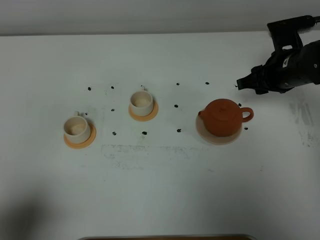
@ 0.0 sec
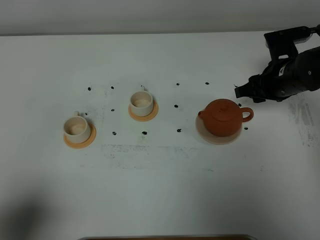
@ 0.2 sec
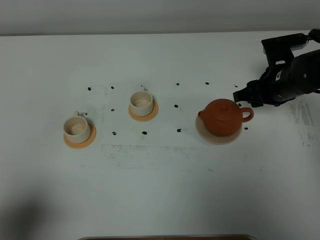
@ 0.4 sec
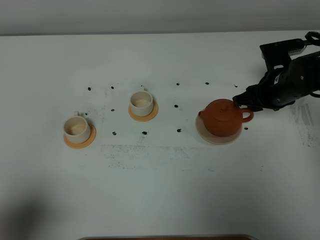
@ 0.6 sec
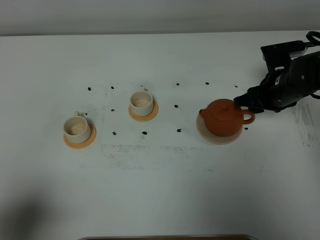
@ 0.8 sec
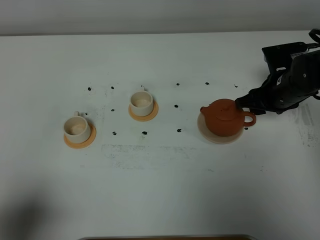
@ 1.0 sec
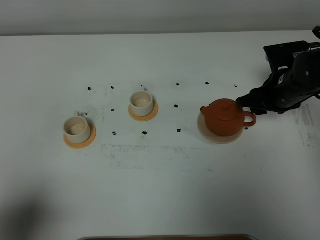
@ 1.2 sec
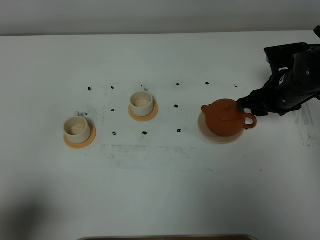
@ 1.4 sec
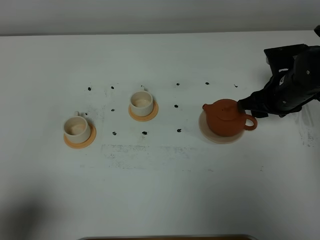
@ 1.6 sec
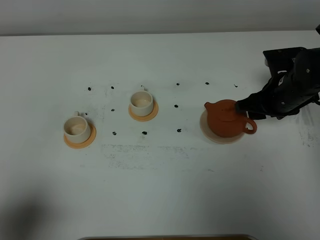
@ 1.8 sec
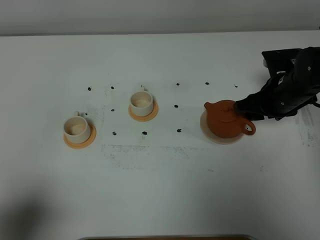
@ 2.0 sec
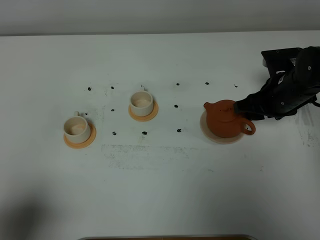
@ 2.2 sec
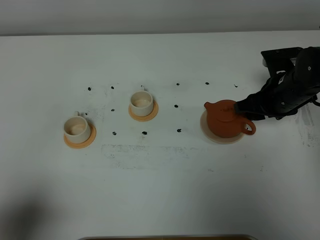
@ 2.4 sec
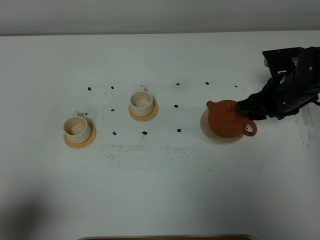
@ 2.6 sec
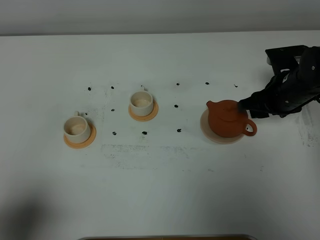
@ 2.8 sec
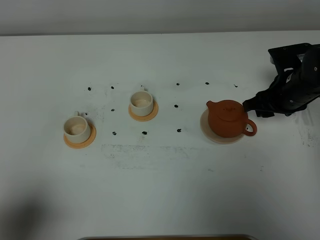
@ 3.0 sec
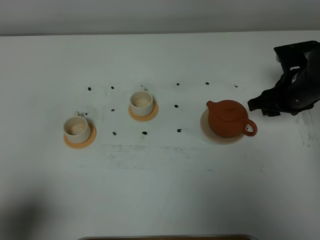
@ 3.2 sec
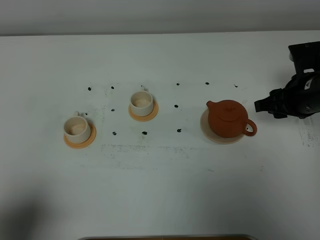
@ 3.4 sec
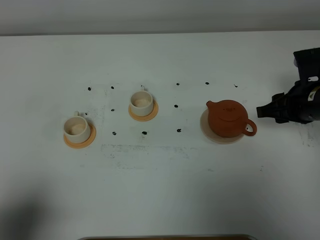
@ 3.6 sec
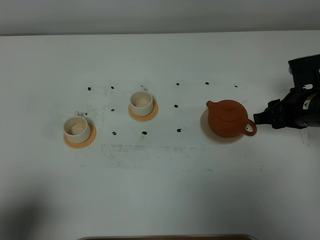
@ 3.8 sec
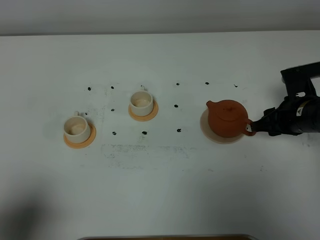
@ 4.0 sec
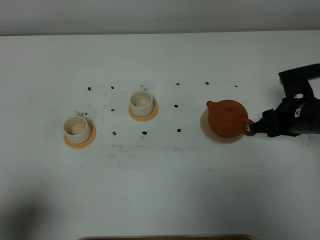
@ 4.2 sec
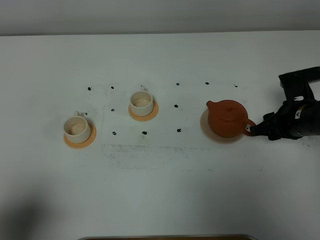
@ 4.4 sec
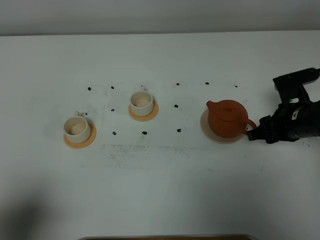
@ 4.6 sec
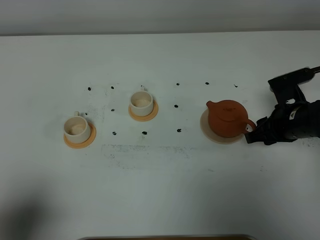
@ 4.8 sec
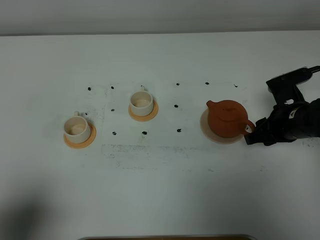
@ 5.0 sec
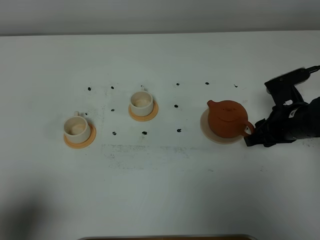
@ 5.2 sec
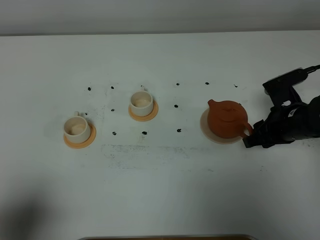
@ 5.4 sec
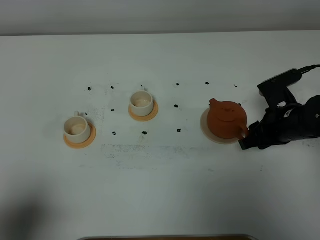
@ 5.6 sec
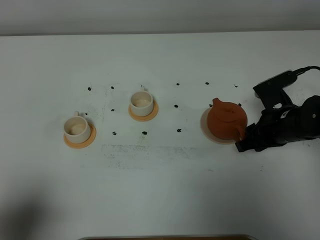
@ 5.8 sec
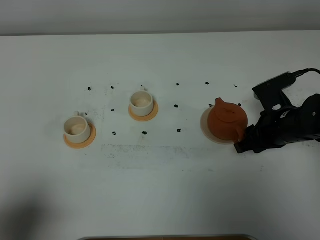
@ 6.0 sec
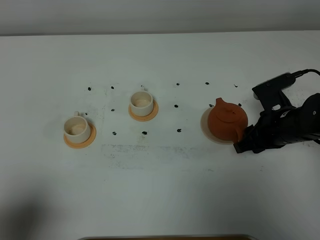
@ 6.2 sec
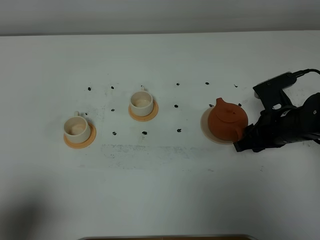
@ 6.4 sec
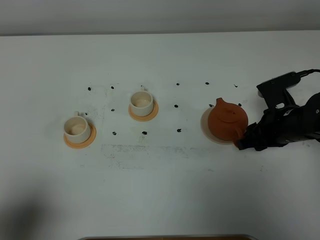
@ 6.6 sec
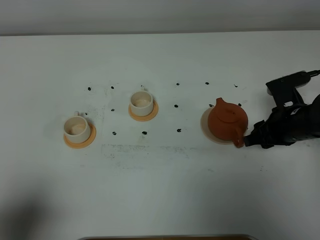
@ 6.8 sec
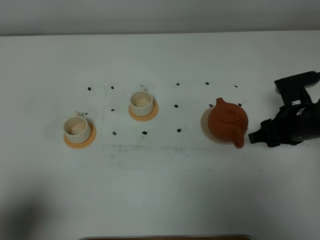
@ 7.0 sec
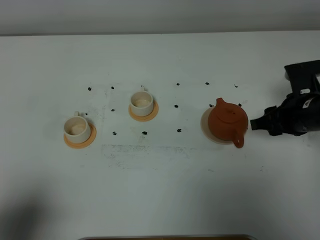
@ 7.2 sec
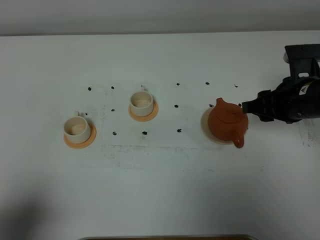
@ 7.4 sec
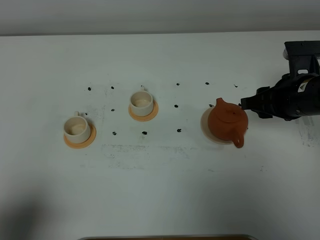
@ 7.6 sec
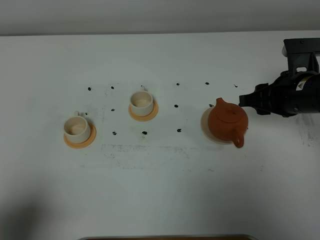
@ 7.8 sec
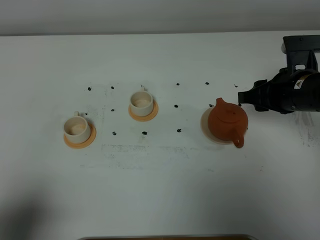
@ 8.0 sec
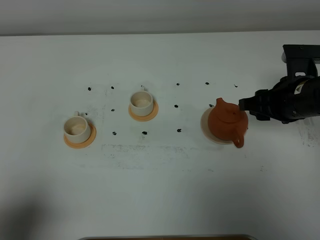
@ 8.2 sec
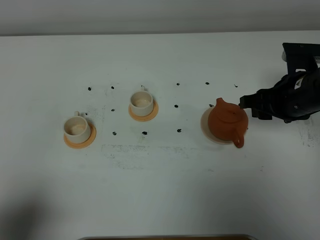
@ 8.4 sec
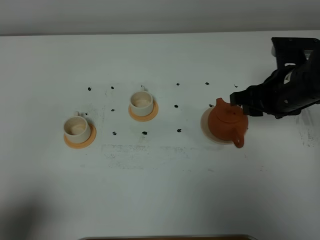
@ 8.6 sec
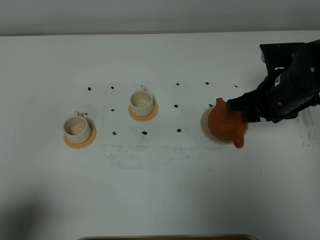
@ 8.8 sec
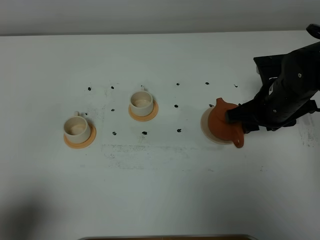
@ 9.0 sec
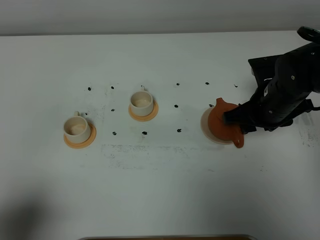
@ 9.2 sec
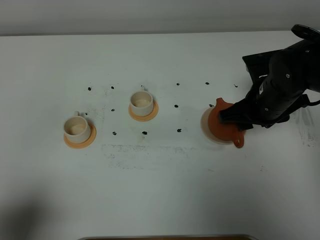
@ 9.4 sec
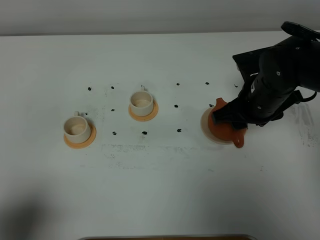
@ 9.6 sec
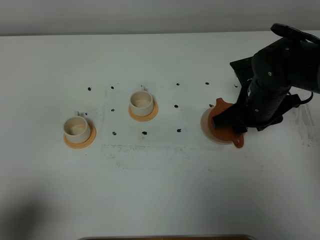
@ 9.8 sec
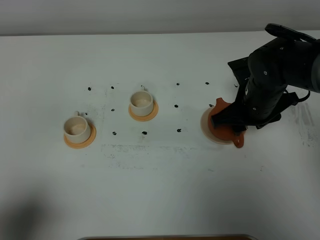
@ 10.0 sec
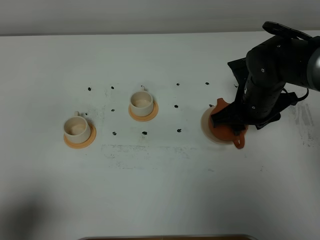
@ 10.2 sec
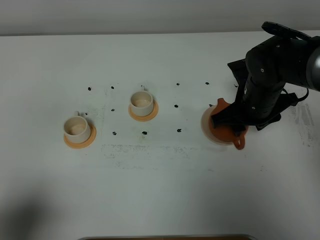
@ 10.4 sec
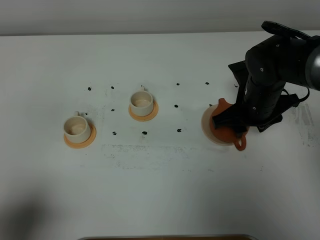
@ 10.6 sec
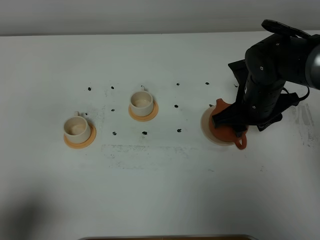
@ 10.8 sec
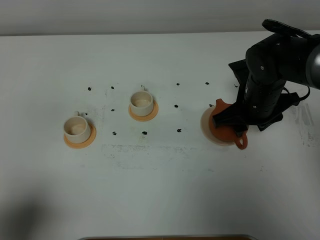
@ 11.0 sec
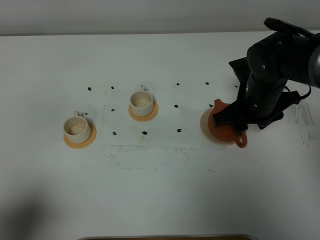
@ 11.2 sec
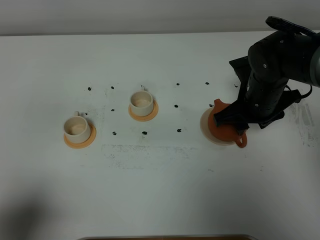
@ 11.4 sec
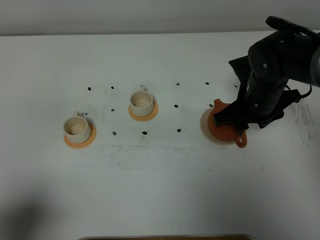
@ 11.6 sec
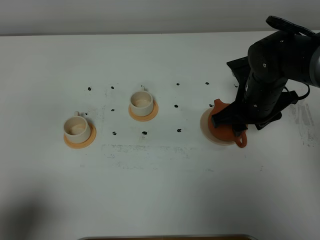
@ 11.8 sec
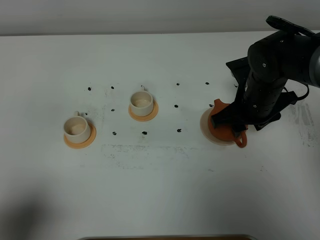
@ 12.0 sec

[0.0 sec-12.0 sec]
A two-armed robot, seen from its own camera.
Task of the whole recording: grasp the brown teapot and pour the tea into the two white teacups one by one, put the brown teapot back in its original place.
0.0 sec to 3.0 sec: The grippers make only small movements.
3.0 sec to 4.4 sec: The right gripper heads backward, covering some 5 cm.
4.4 sec to 6.0 sec: There are only small adjustments of the grippers.
6.0 sec to 7.6 sec: The right gripper is displaced upward by some 10 cm.
9.0 sec to 10.4 sec: The grippers make only small movements.
10.4 sec to 12.0 sec: Both grippers stay put.

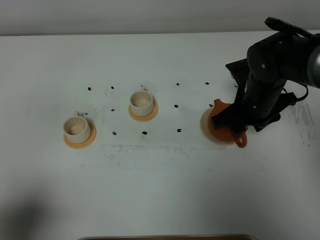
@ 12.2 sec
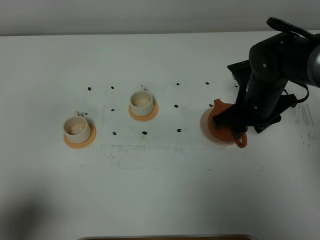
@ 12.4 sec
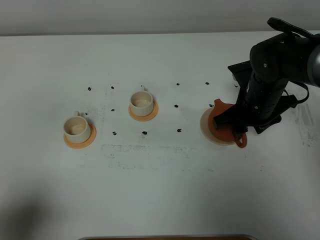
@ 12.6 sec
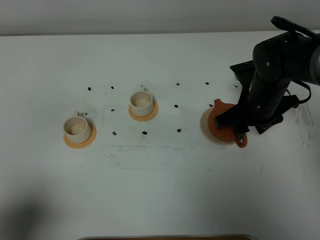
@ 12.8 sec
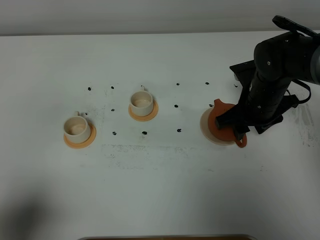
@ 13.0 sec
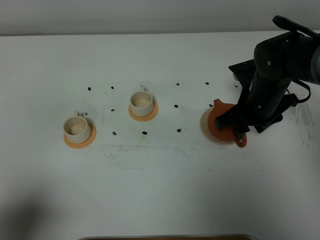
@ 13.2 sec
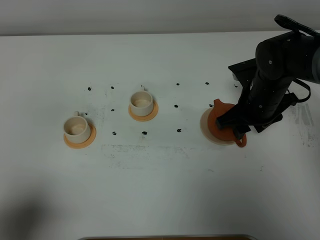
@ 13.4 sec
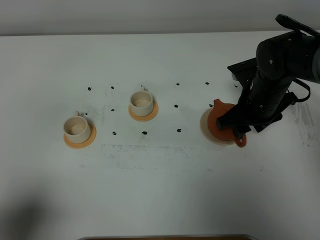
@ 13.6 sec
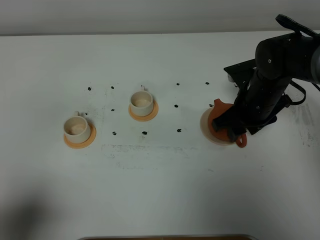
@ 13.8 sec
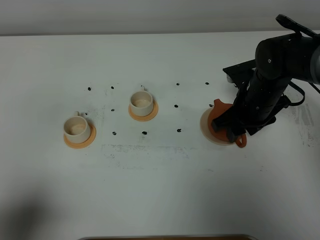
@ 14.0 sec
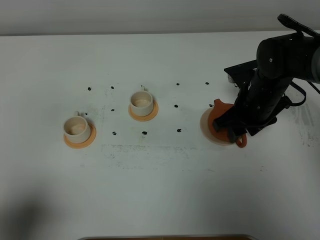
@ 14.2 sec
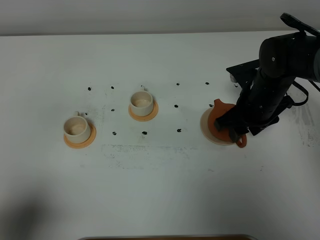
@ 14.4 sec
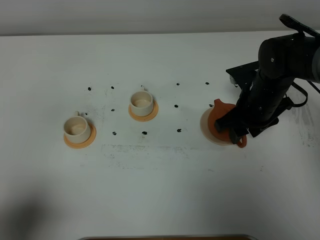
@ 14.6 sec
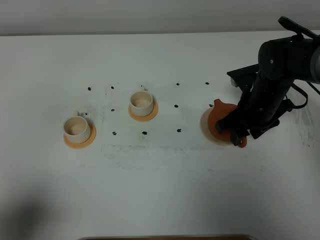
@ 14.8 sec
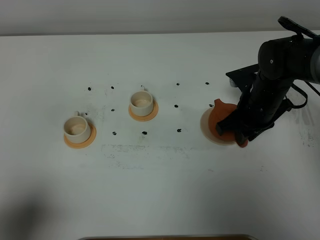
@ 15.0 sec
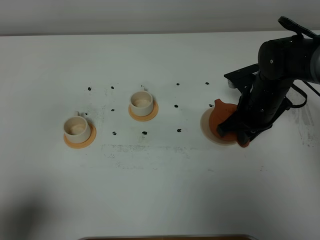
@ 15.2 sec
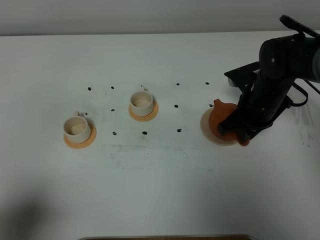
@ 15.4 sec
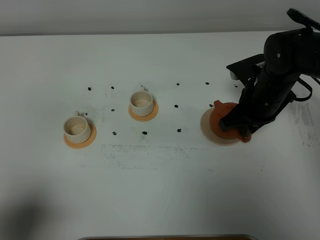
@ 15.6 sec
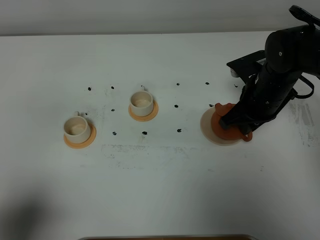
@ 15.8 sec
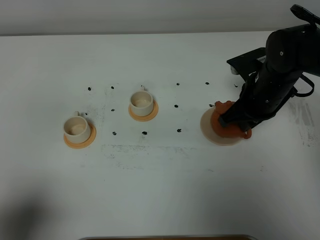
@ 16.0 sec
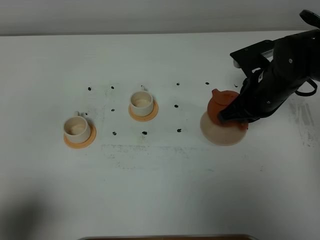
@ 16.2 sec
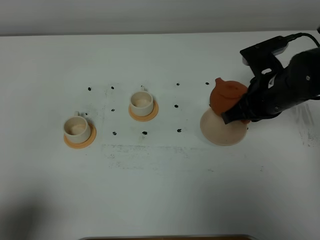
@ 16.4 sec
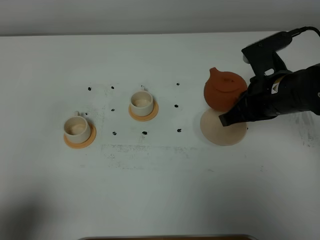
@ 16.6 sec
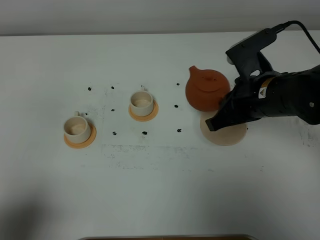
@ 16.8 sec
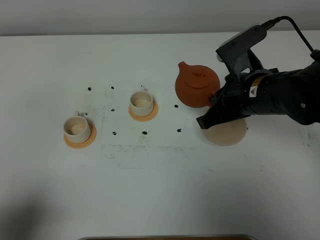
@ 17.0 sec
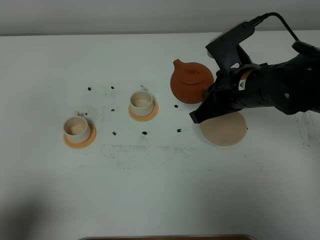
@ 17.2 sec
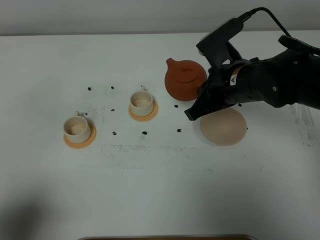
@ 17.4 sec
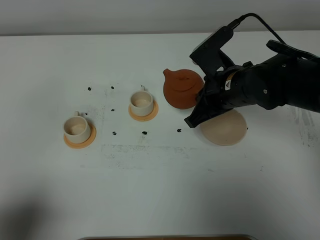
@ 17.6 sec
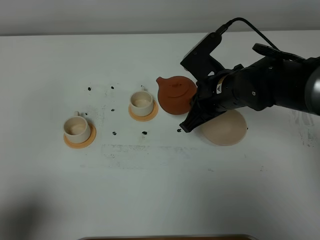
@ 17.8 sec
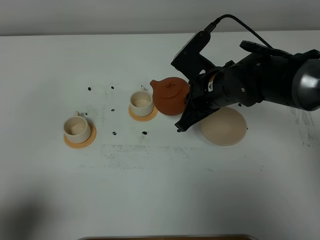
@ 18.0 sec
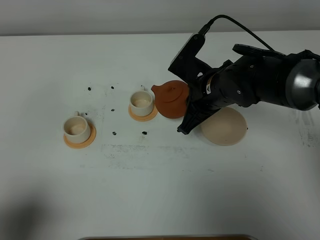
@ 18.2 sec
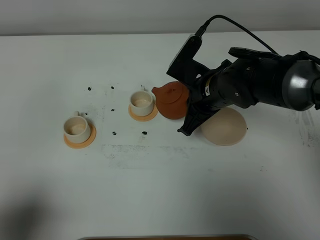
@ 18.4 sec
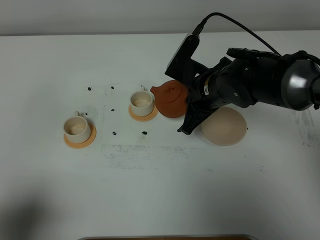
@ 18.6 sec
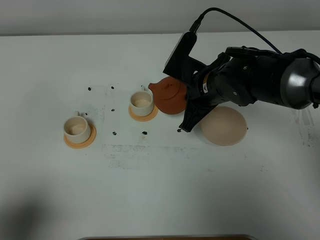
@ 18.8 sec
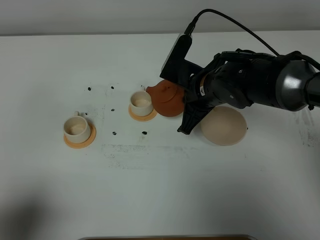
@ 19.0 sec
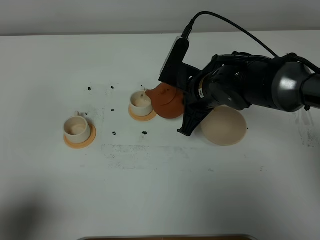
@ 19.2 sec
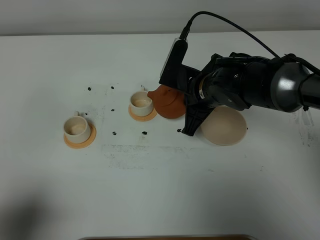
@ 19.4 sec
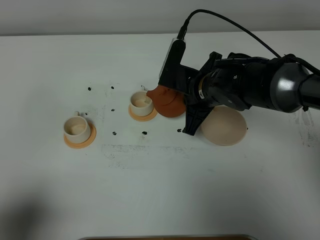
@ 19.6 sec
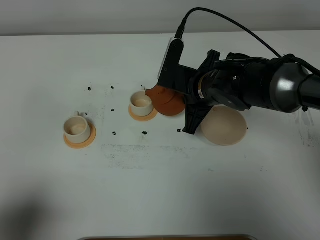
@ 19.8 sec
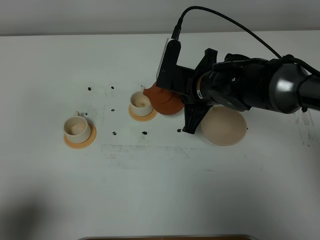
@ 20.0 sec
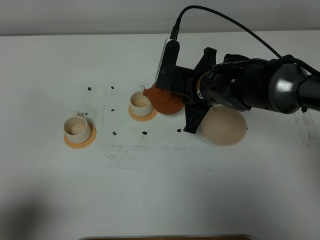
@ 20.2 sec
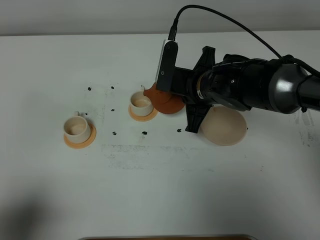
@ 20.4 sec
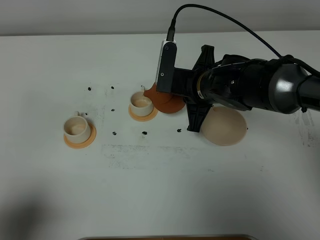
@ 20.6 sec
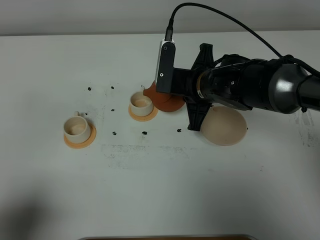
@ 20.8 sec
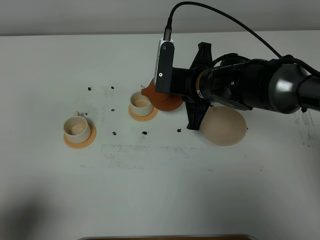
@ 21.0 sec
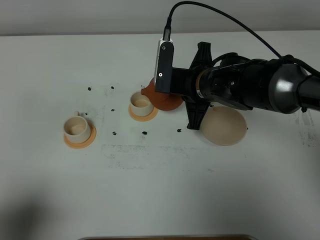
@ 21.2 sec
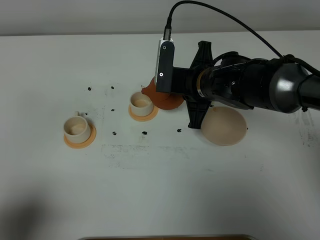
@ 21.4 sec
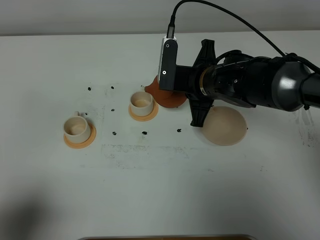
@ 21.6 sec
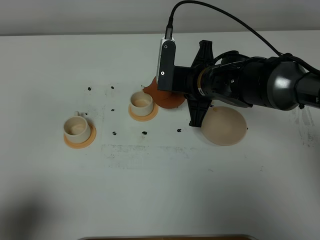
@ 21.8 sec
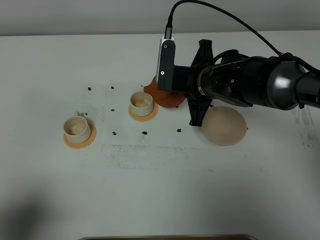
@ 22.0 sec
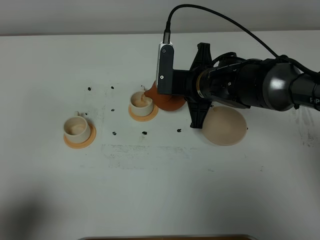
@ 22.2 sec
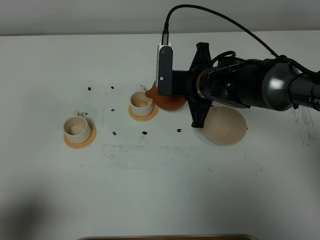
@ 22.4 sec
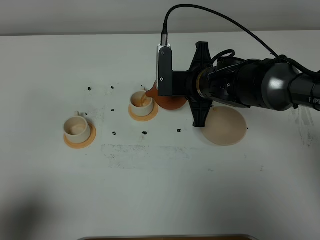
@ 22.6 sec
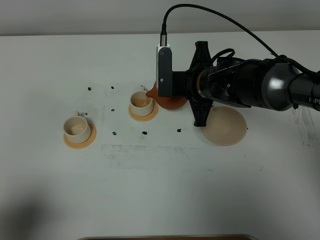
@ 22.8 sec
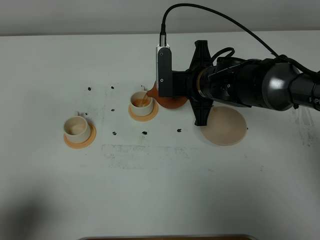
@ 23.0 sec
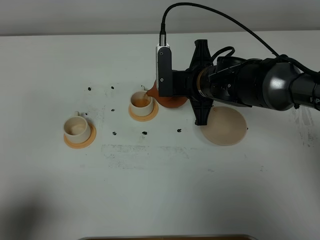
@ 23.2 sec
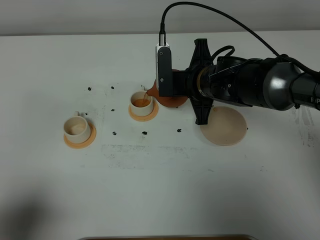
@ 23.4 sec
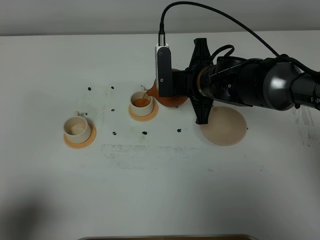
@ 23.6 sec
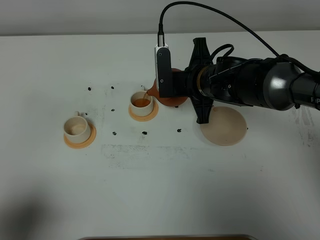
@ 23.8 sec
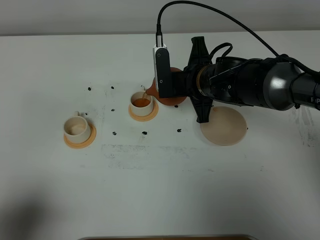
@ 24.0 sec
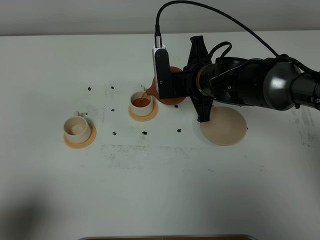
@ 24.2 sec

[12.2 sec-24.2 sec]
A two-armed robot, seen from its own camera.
Task of the whole recording: grasp the brown teapot and pour the tea into the two white teacups one by one, put the brown teapot back in its original place.
Step, 12.2 sec to 16.2 sec: Pick up the teapot with the right gripper.
12.2 sec to 13.8 sec: The grippers move only a little.
13.8 sec to 15.2 sec: The right gripper closes its fingers.
15.2 sec to 16.6 sec: The right gripper is displaced upward and backward by roughly 10 cm.
16.6 sec to 18.2 sec: The right gripper goes approximately 10 cm to the left.
18.2 sec to 19.8 sec: There are only small adjustments of the grippers.
19.8 sec to 22.6 sec: The grippers move only a little.
22.6 sec to 24.2 sec: The grippers move only a little.
